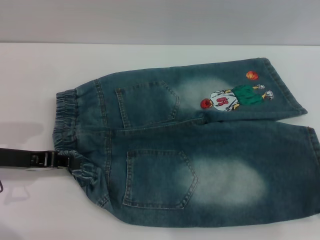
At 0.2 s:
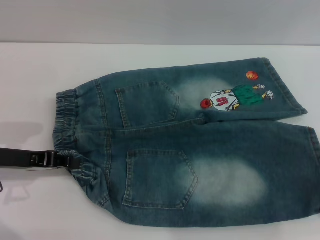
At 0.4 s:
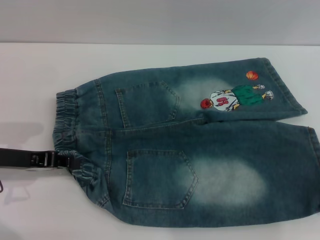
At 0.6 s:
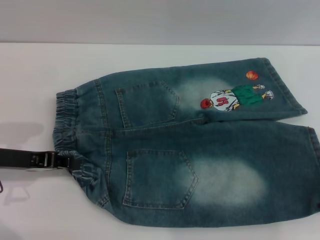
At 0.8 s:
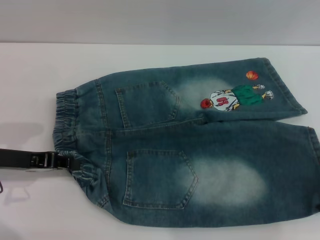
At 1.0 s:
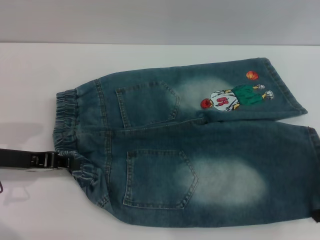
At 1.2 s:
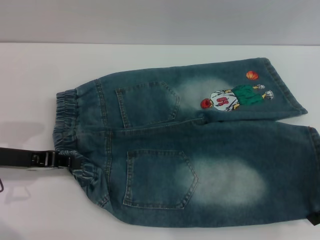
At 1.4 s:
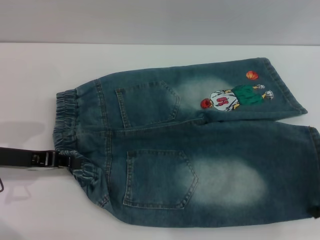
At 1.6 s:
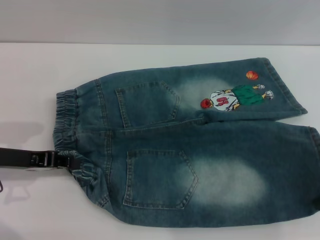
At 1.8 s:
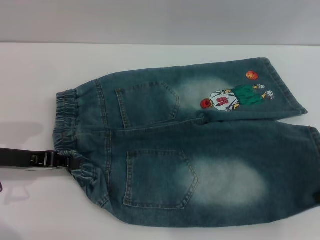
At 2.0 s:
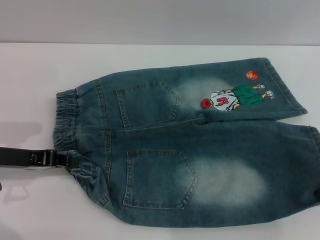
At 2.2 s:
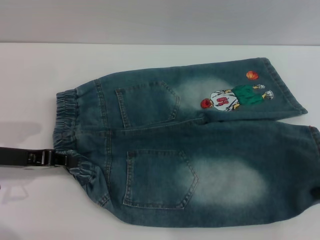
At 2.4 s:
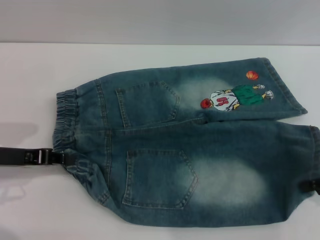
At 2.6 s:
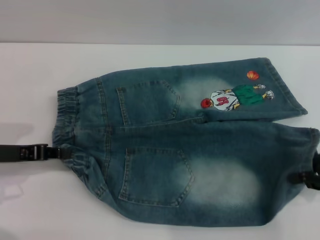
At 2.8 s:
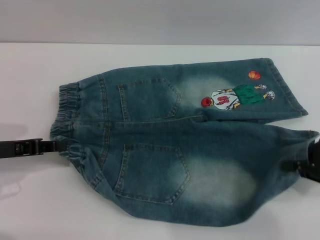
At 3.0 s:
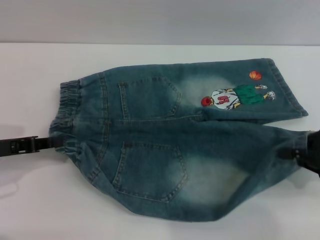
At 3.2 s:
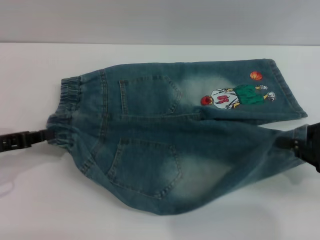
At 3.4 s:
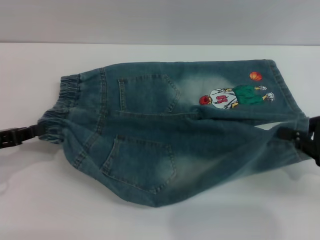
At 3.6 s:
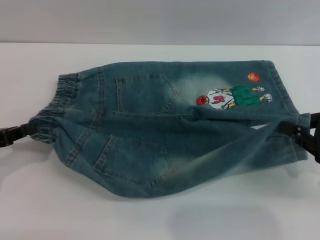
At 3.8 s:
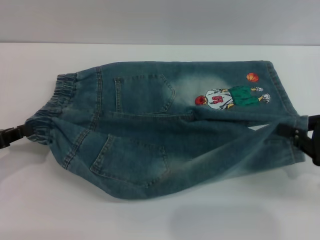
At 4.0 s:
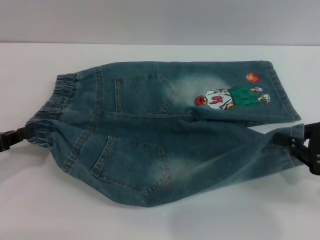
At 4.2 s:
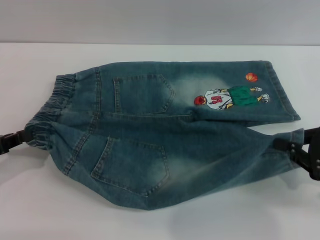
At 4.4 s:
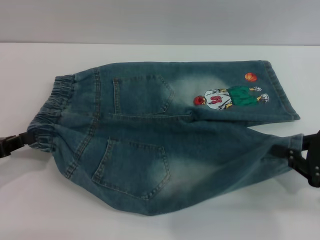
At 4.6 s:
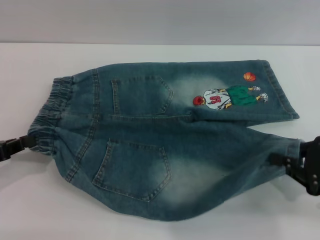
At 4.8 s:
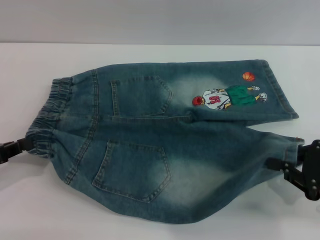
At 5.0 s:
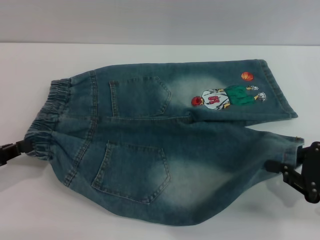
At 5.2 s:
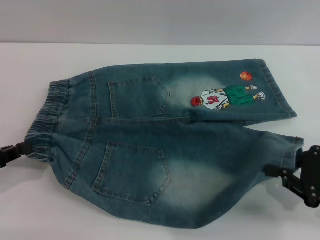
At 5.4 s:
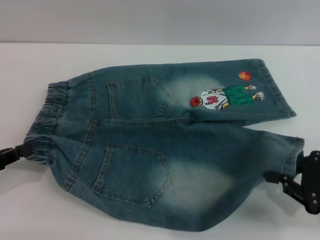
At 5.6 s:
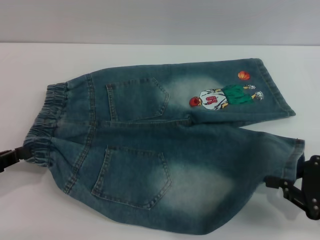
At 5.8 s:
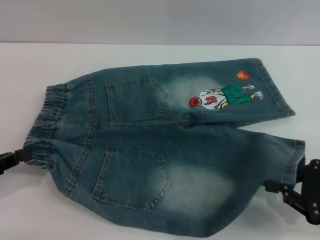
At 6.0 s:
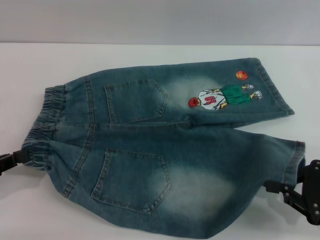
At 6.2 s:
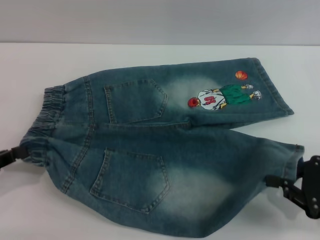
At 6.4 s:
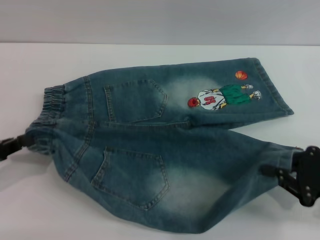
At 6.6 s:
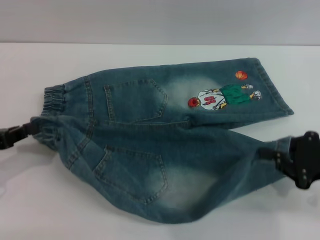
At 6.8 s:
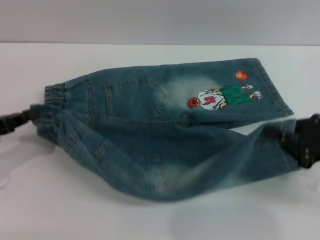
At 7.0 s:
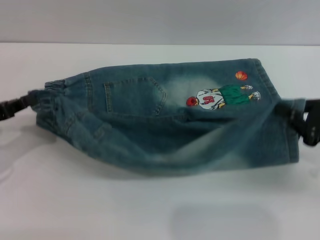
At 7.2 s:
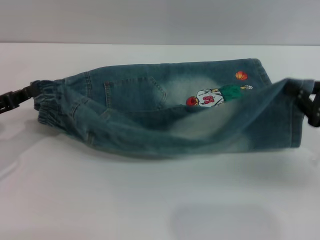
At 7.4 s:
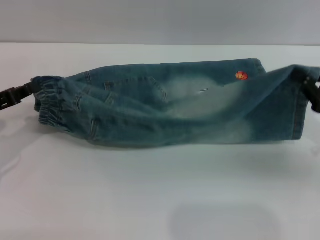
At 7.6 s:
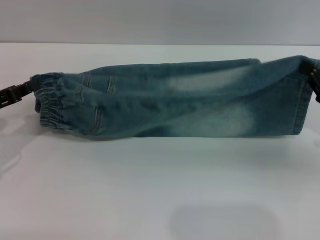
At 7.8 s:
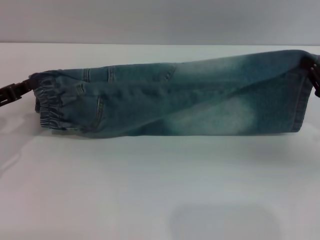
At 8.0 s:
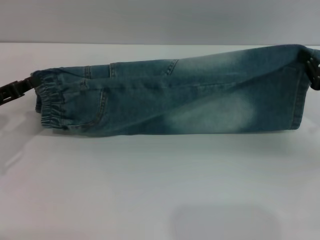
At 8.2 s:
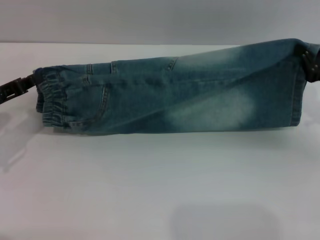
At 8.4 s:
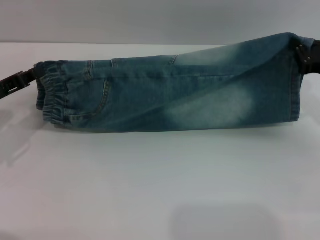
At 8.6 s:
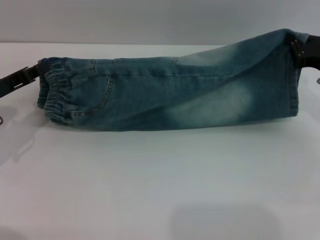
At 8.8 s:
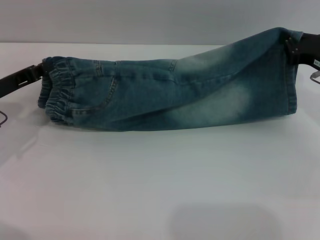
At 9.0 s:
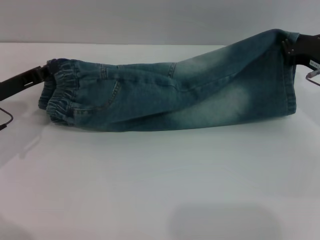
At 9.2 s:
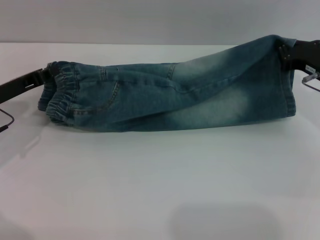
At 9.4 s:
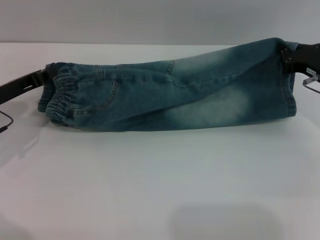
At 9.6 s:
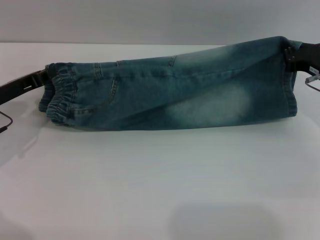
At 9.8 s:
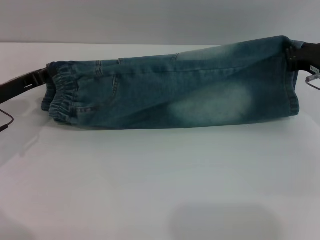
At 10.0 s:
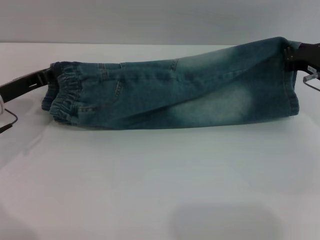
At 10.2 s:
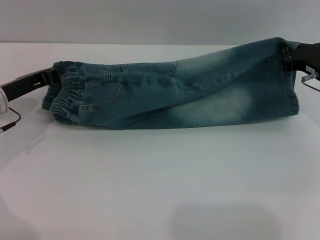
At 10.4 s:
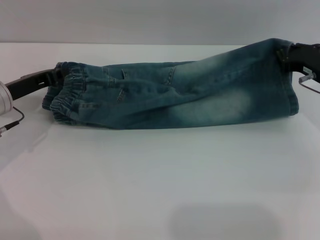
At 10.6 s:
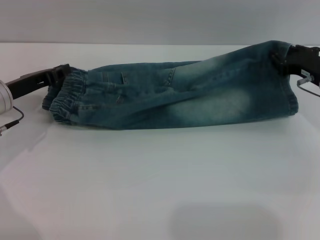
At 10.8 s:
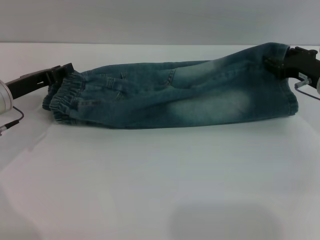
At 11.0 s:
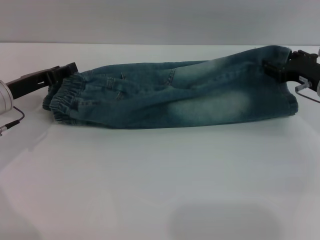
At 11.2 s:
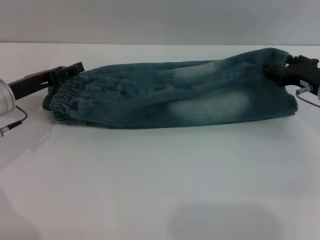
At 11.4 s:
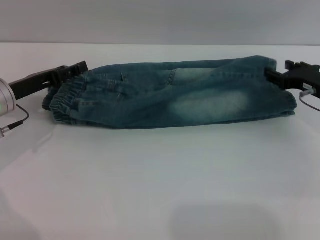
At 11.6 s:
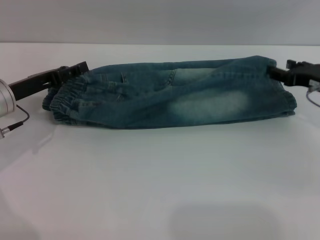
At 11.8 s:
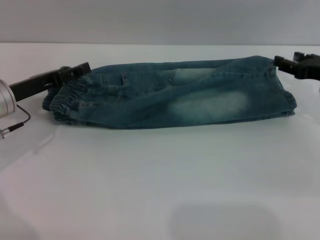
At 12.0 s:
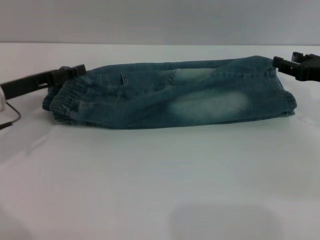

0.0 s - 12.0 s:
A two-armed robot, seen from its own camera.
1.6 s - 3.0 s: The right gripper closes up.
3.0 s - 4.4 s: The grippers stay close to where they were, moving slightly.
6.0 s - 7.6 s: Both grippers move forward, about 10 cm.
7.6 s - 9.0 s: The right gripper travels forward by approximately 10 cm, while the left gripper ends up some 5 cm from where it was.
9.0 s - 10.4 s: The grippers stay close to where they were, moving slightly.
10.4 s - 12.0 s: The right gripper ends up approximately 5 cm from where it was, and opens its fingers, while the left gripper opens up.

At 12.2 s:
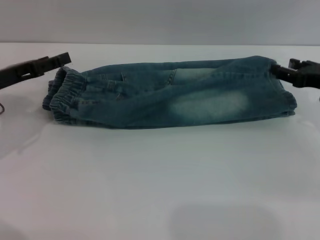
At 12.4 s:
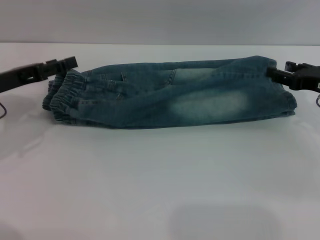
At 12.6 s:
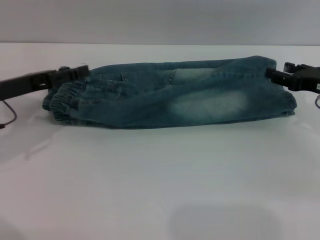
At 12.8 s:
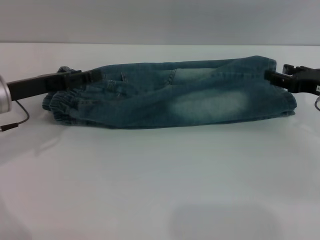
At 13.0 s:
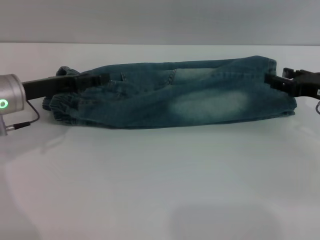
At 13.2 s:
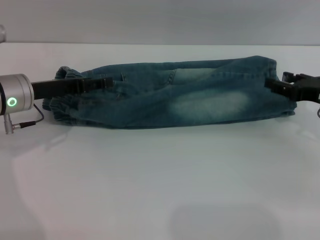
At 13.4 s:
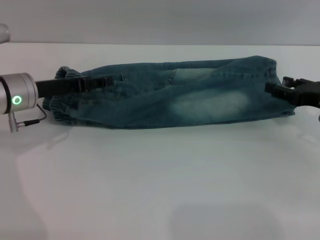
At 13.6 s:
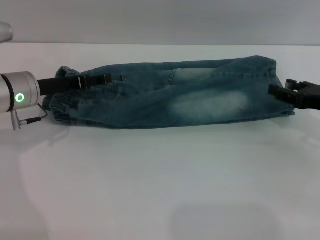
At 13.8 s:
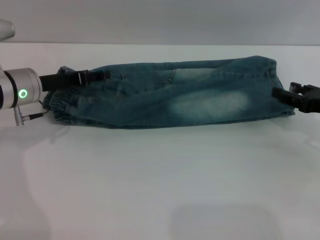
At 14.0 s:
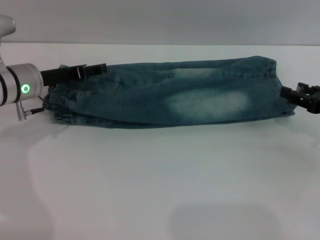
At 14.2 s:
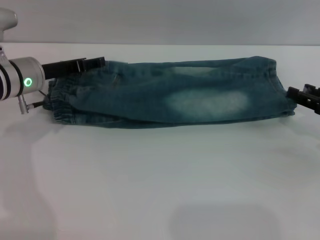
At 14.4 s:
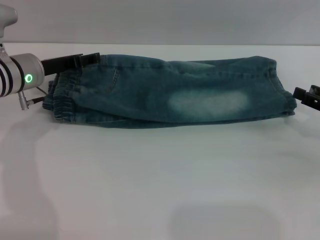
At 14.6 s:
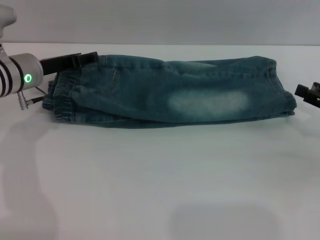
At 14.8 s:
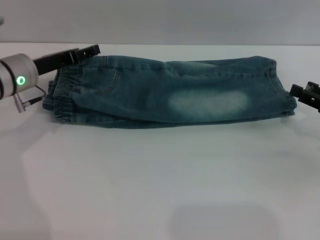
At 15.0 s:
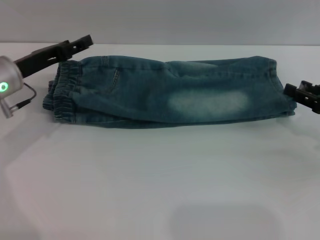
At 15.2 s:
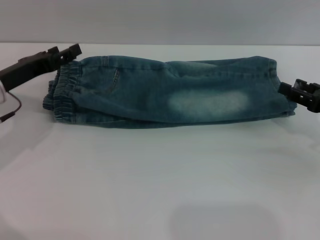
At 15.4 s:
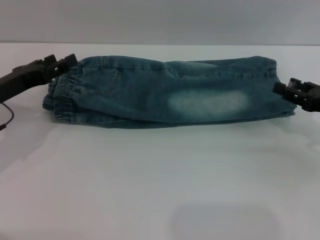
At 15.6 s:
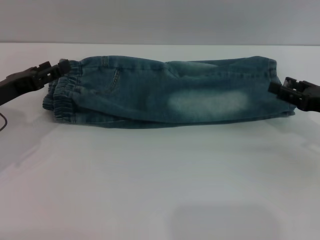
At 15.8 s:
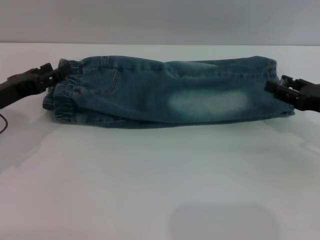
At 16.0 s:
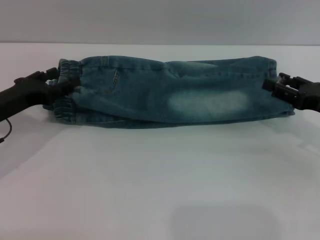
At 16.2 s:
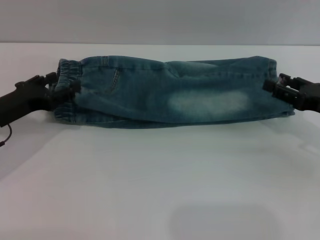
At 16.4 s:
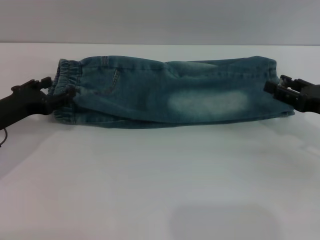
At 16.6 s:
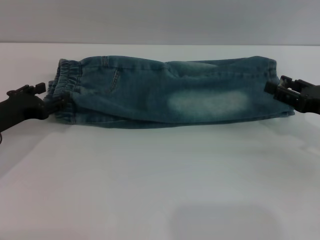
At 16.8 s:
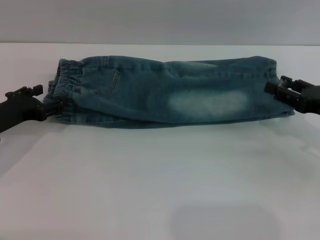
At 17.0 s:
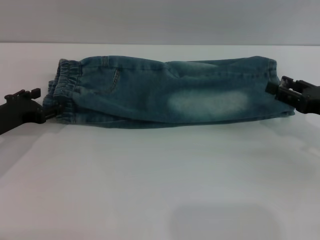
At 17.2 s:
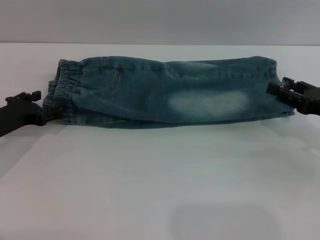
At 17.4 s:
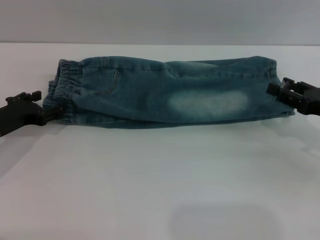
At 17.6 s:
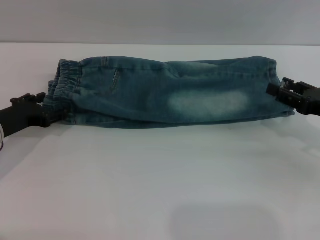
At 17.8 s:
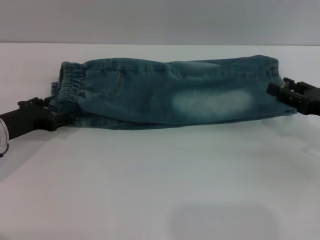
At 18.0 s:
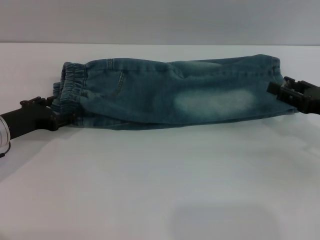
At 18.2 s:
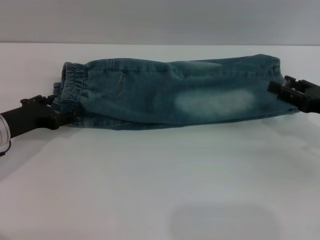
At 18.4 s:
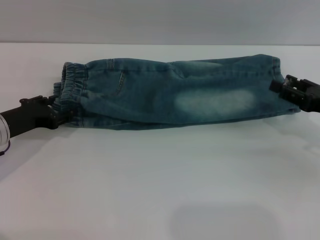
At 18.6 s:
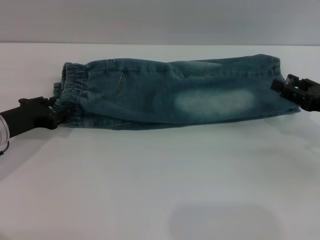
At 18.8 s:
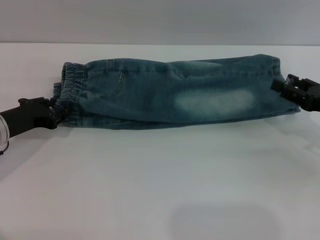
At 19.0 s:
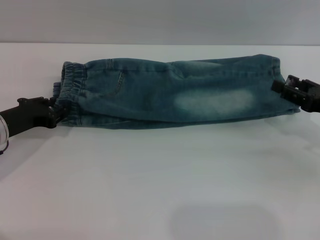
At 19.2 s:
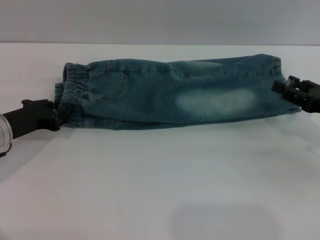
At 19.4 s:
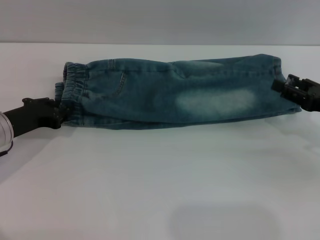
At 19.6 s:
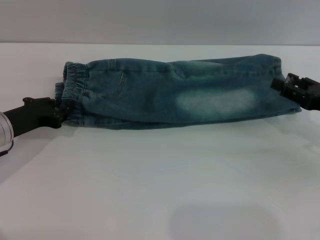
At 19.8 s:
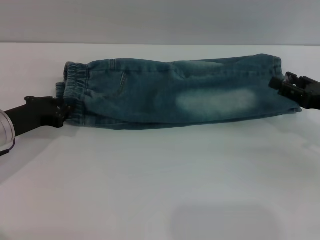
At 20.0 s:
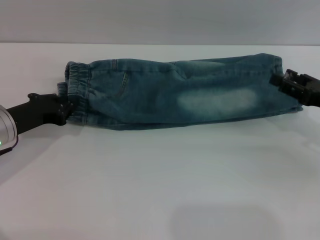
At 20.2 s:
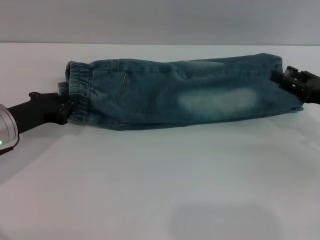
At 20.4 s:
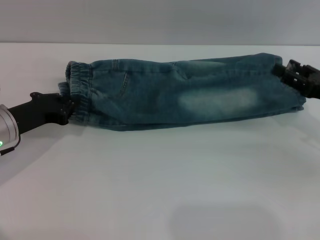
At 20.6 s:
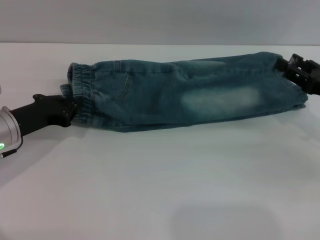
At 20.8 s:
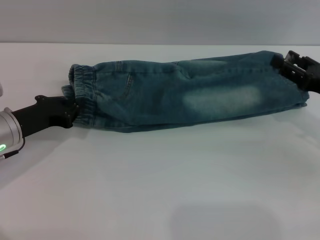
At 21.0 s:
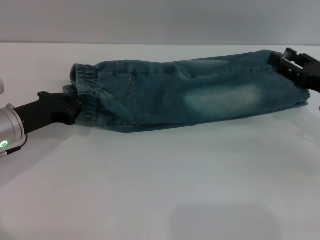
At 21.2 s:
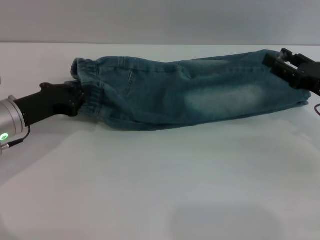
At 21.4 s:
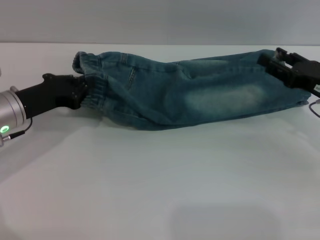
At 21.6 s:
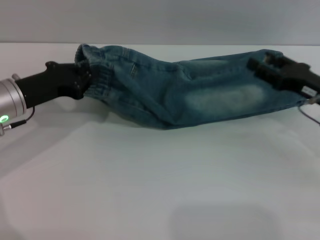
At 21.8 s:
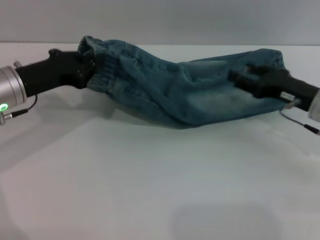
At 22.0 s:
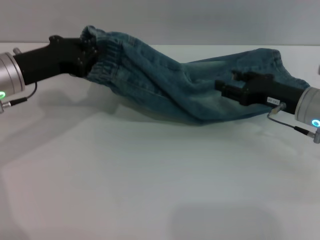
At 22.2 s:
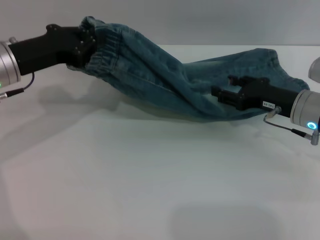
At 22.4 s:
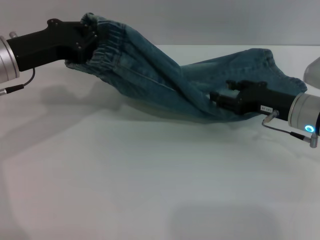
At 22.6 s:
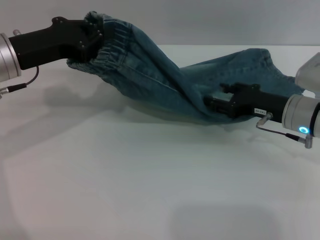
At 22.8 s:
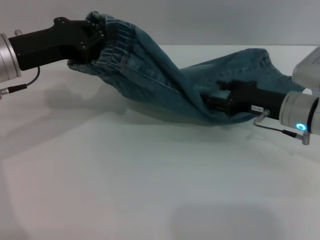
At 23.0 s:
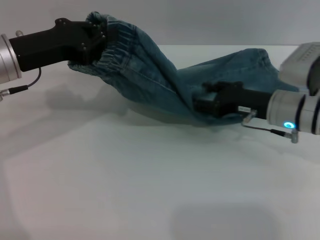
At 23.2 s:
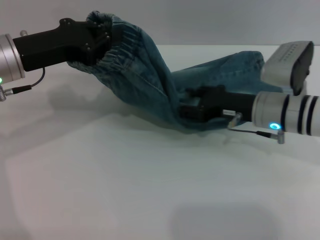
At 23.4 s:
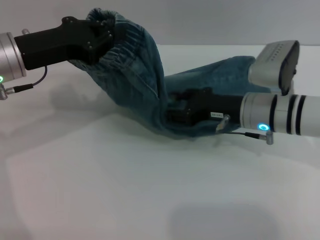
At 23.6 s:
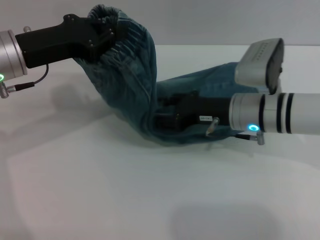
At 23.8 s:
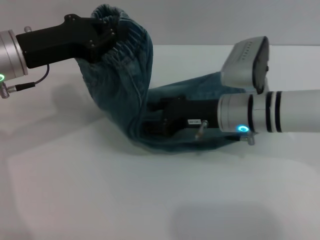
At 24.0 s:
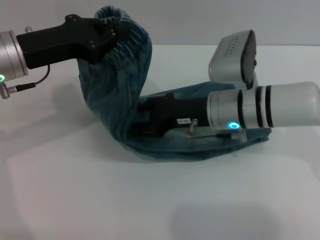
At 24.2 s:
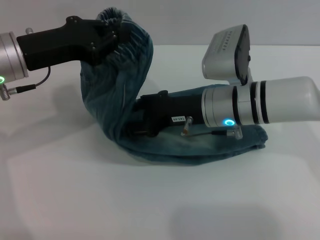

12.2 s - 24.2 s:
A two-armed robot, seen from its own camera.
Step, 12.2 s - 15.0 s: Fold the bottom of the pants upward with both grippers.
12.2 s - 13.8 s: The left gripper heads to the right, covering some 5 cm.
13.8 s - 15.2 s: The left gripper shifts by some 5 cm.
15.2 s - 16.6 s: The left gripper ends up some 5 cm from where it was.
16.6 s - 18.2 s: There are only small adjustments of the grippers.
18.2 s - 19.8 s: The left gripper closes its fingers.
19.8 s - 21.2 s: The grippers move only a little.
21.2 s - 22.6 s: The right gripper moves to the left, roughly 10 cm; the left gripper goes roughly 10 cm upward.
22.6 s - 24.2 s: The right gripper moves to the left, about 15 cm.
